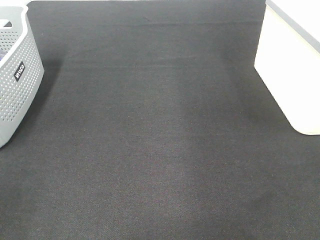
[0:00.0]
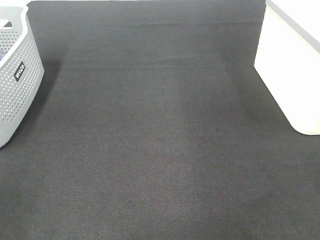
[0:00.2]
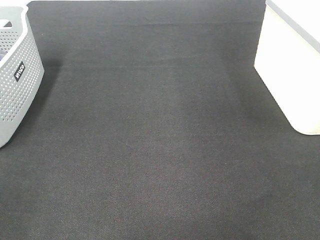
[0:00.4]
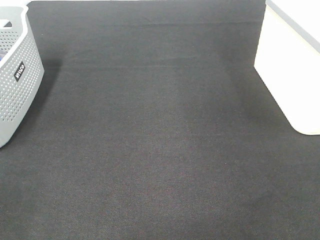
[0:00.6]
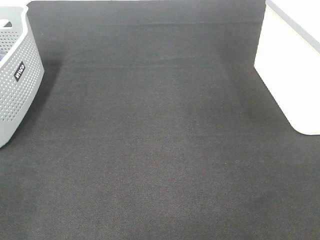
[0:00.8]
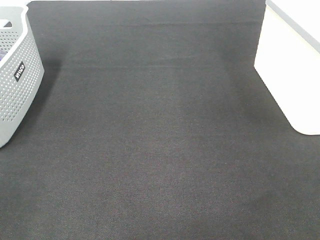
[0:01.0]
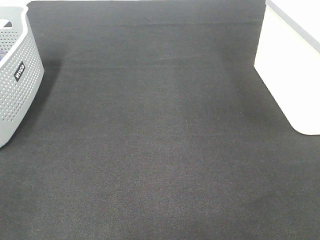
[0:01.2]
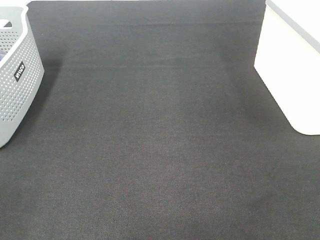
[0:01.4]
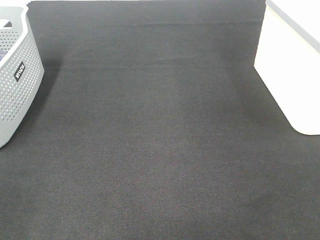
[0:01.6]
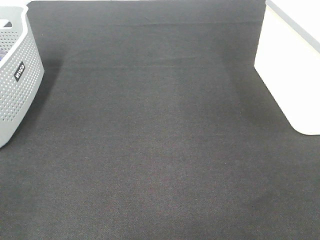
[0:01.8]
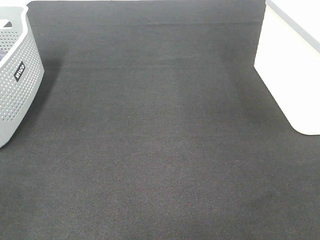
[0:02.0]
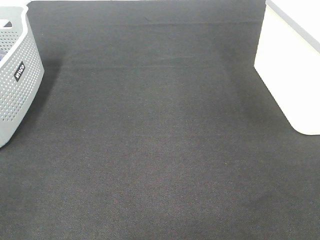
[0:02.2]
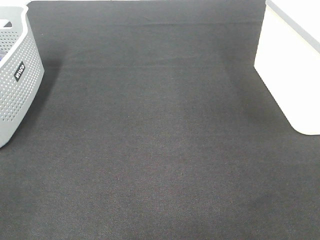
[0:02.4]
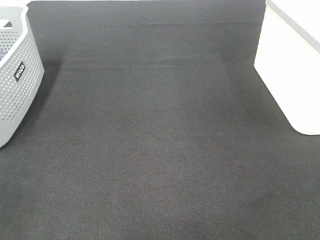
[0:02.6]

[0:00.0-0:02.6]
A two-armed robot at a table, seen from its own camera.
0:01.2 to 0:02.6: The two grippers keep their place.

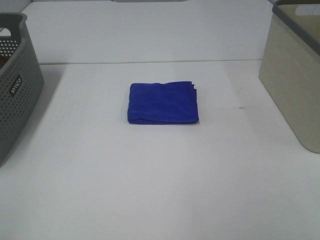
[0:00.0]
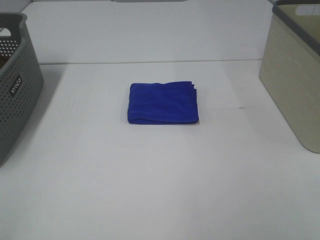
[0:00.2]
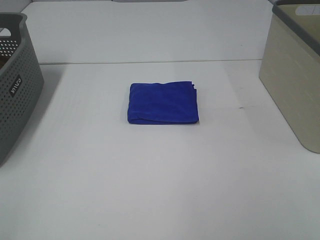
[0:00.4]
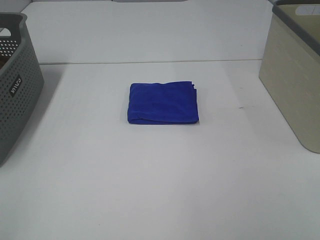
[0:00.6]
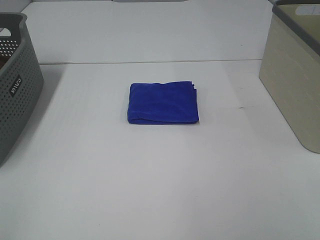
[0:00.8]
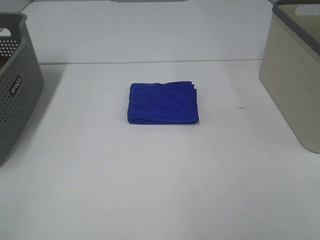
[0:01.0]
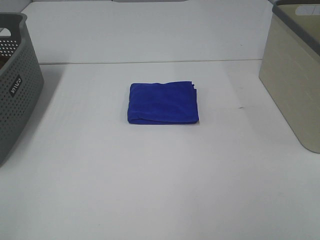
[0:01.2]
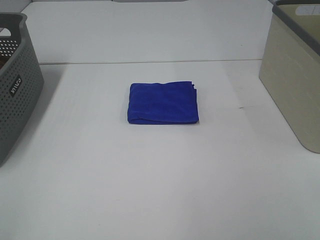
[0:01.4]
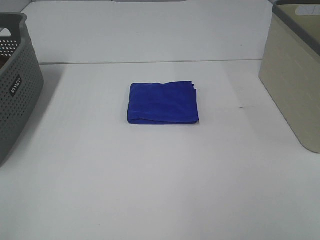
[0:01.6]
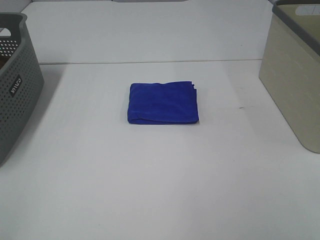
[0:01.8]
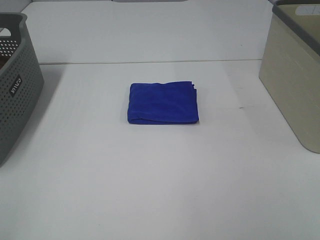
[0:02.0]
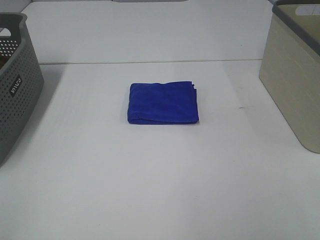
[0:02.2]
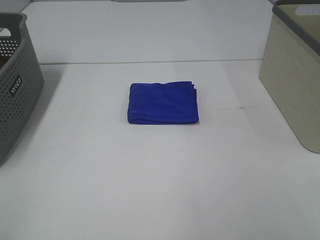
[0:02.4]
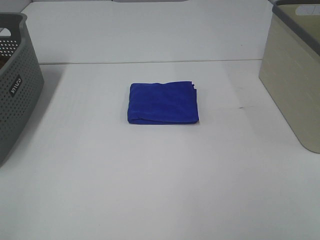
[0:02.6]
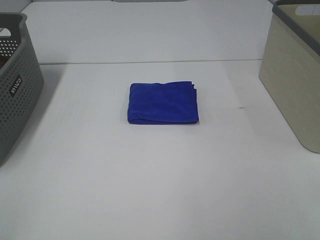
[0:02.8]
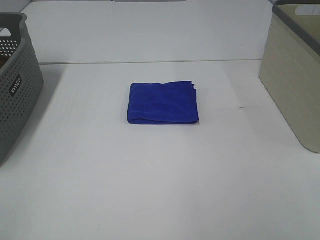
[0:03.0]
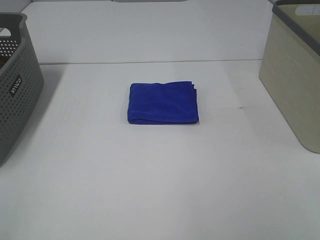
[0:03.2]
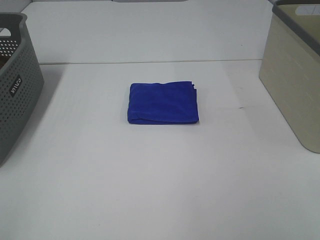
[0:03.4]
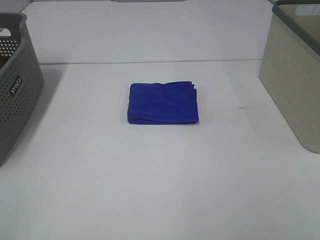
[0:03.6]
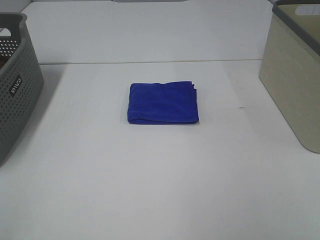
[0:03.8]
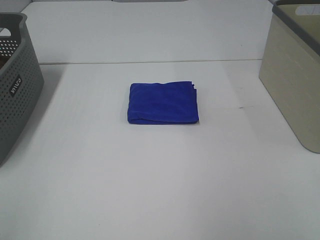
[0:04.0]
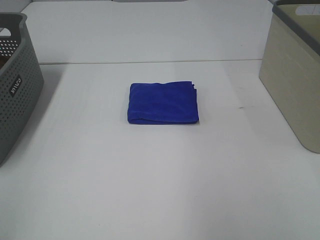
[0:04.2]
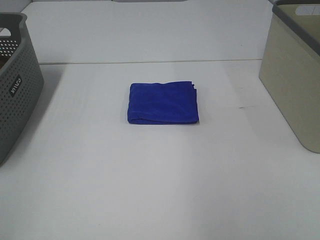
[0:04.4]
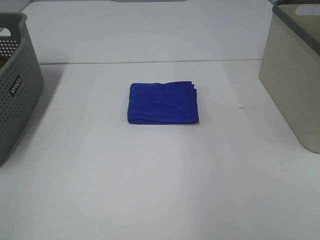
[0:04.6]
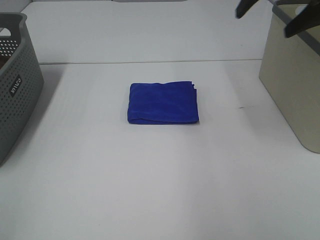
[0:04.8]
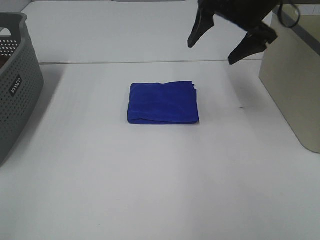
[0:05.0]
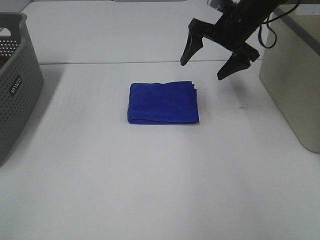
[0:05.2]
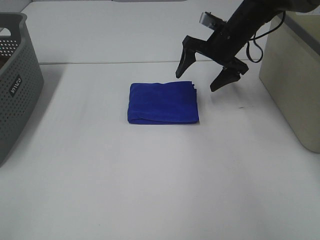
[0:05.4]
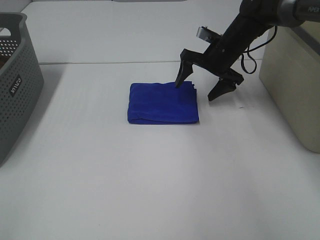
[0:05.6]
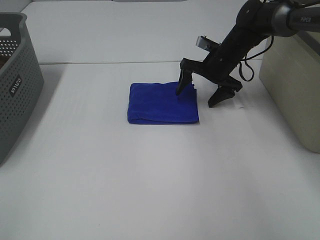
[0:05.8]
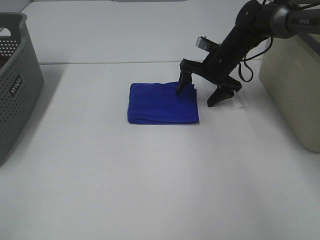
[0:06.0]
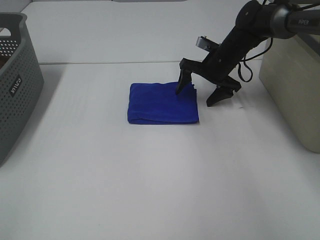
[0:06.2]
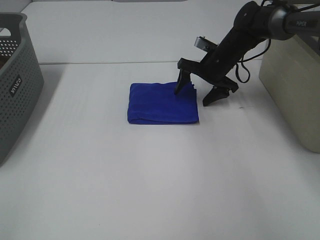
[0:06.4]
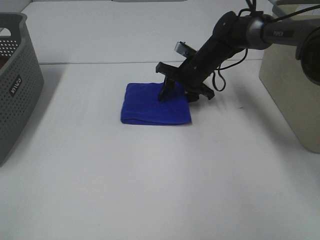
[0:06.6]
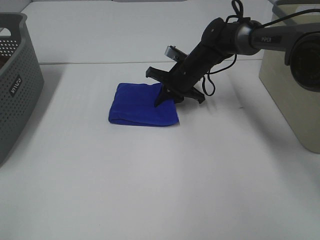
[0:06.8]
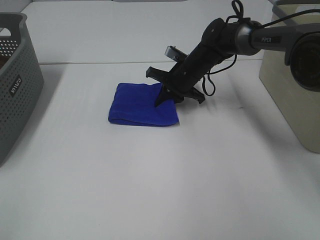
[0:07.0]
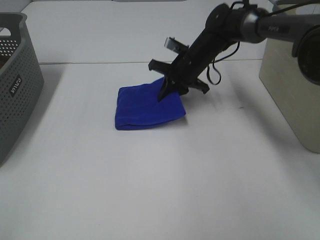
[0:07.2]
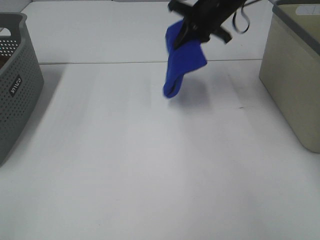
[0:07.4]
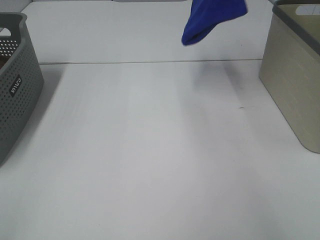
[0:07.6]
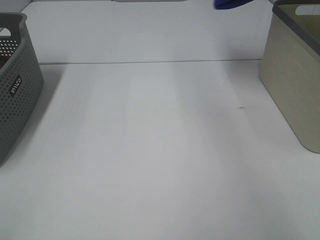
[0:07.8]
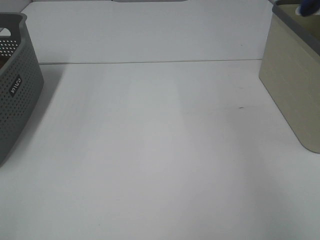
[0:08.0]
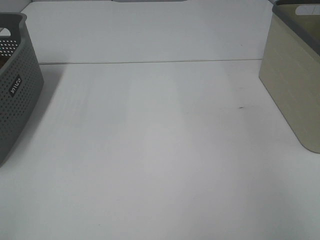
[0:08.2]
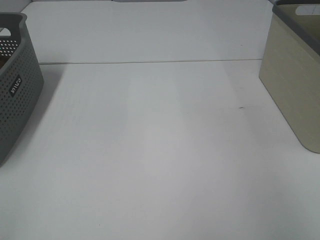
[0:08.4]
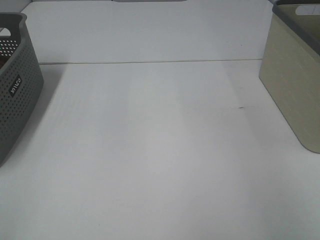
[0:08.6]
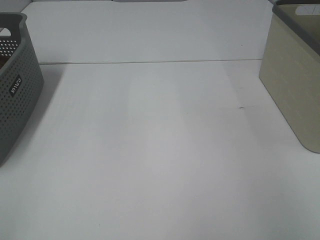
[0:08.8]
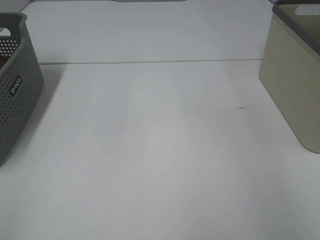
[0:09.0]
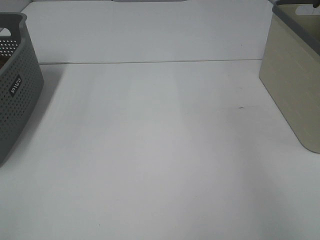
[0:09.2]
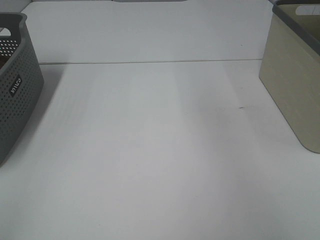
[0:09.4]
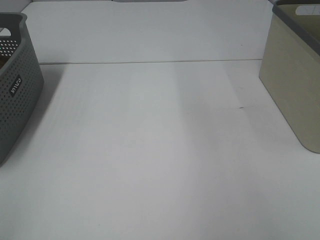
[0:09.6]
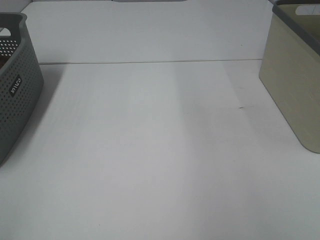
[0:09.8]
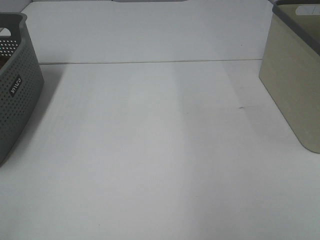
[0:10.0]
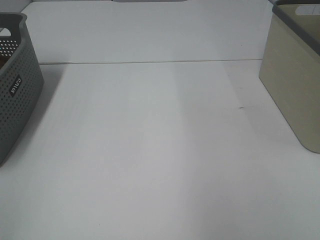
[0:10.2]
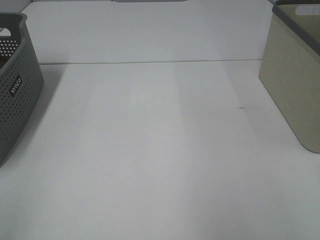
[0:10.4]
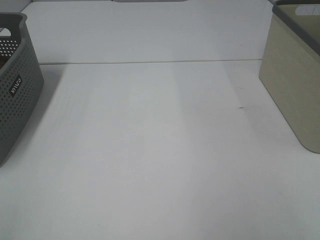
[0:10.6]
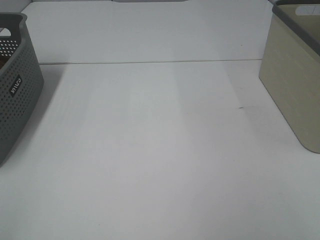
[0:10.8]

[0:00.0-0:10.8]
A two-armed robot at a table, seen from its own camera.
Step, 0:00.0 to 0:07.0: Right hand: grab the folded blue towel.
Step, 0:07.2 to 0:08.8: Right hand: place the blue towel in right basket.
0:00.0 to 0:03.0: Both grippers stay put.
0:04.6 to 0:06.2: The right gripper travels downward, forward and to the left by about 35 cm.
0:06.2 to 0:07.8: The right gripper is displaced upward and to the right by approximately 35 cm, and closes.
0:07.8 to 0:09.2: The right gripper heads downward and to the right, covering roughly 5 cm, and opens its fingers.

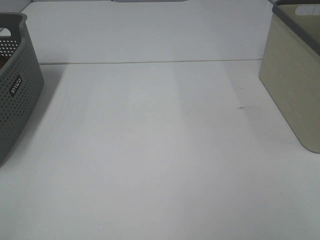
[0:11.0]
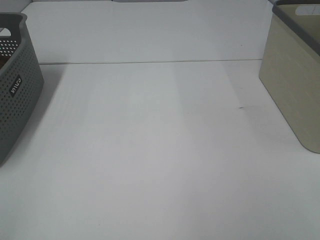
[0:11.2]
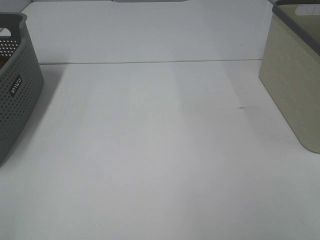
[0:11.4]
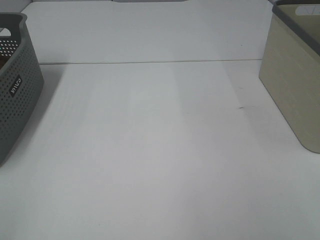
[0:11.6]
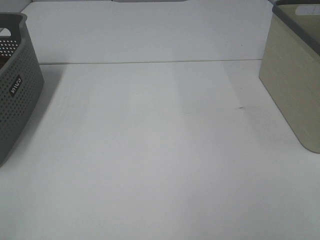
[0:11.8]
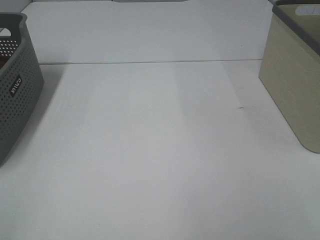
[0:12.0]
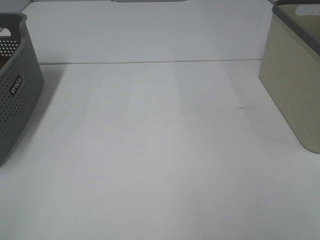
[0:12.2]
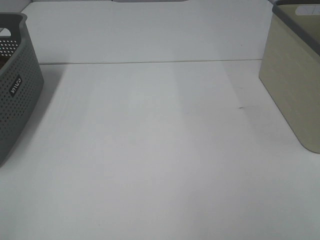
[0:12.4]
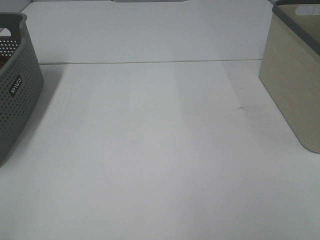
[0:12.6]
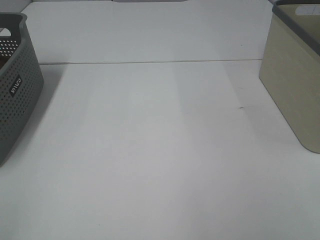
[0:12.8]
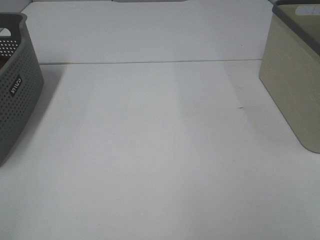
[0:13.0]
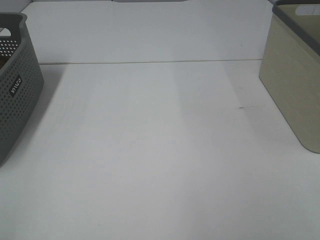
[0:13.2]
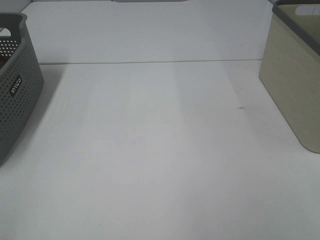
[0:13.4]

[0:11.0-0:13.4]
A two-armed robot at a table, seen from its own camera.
0:12.2 to 0:13.4: Both grippers stay put.

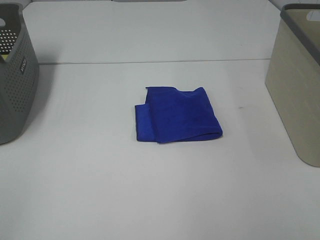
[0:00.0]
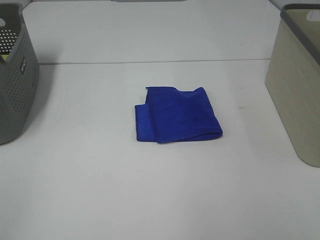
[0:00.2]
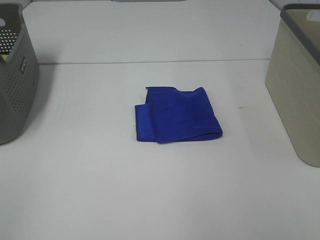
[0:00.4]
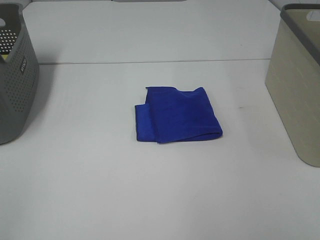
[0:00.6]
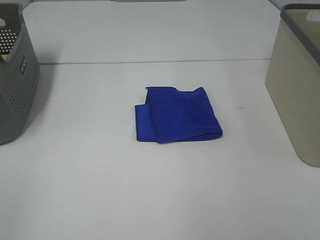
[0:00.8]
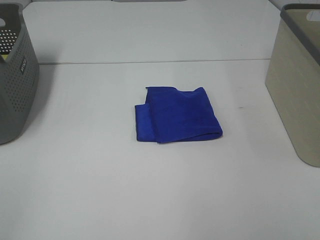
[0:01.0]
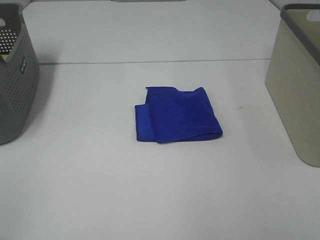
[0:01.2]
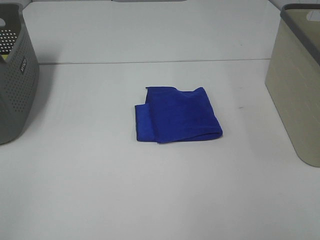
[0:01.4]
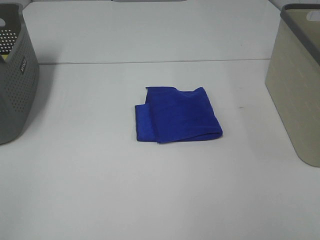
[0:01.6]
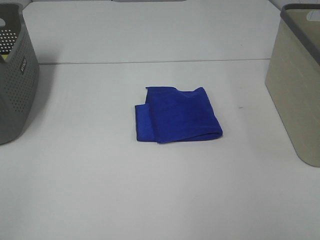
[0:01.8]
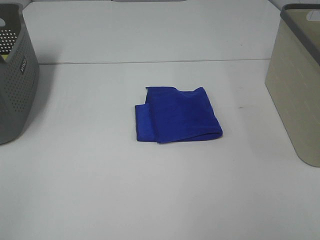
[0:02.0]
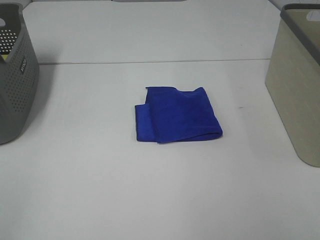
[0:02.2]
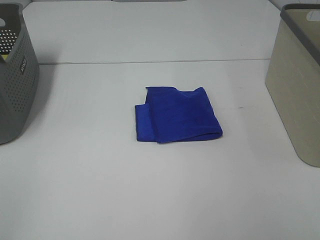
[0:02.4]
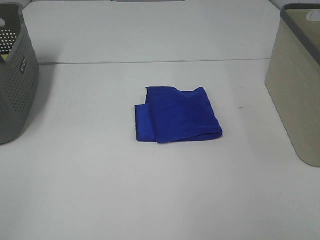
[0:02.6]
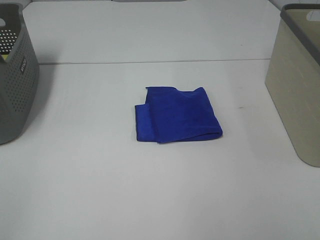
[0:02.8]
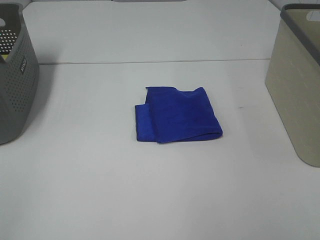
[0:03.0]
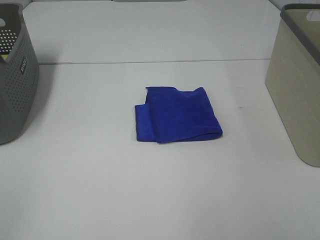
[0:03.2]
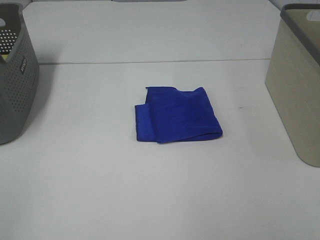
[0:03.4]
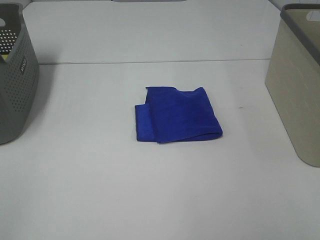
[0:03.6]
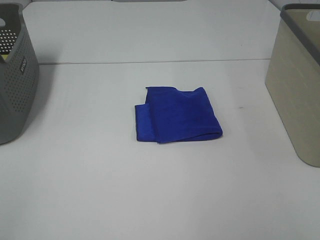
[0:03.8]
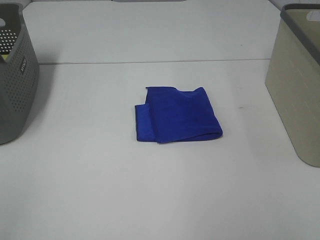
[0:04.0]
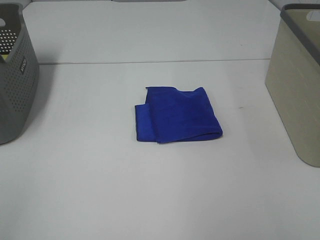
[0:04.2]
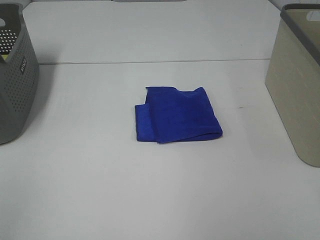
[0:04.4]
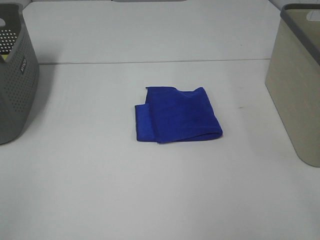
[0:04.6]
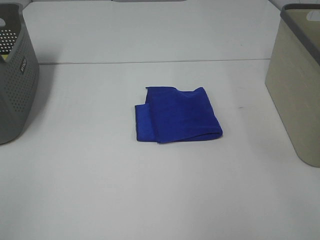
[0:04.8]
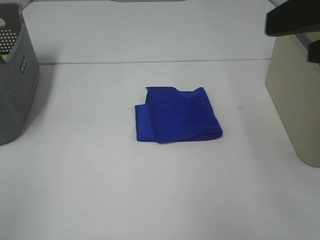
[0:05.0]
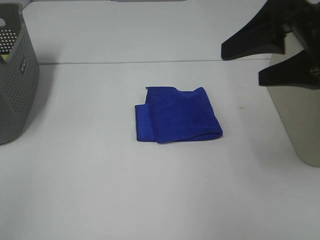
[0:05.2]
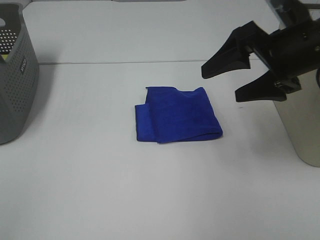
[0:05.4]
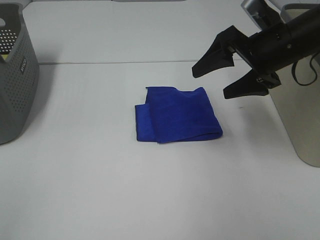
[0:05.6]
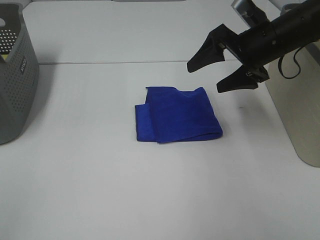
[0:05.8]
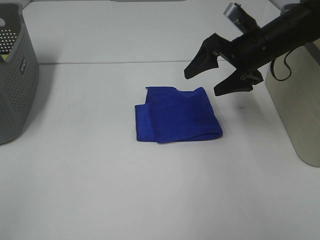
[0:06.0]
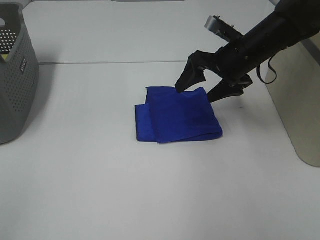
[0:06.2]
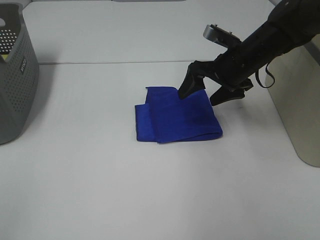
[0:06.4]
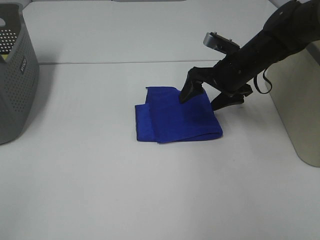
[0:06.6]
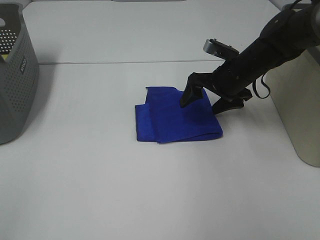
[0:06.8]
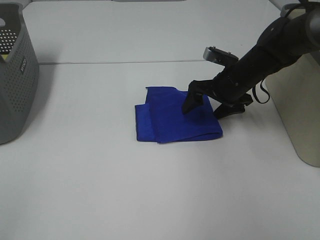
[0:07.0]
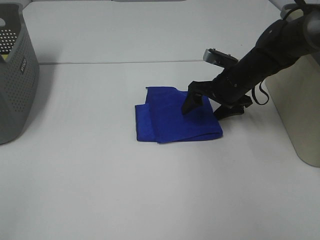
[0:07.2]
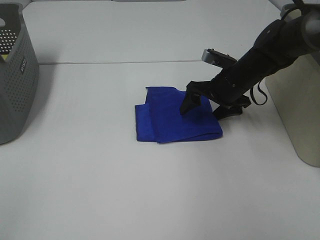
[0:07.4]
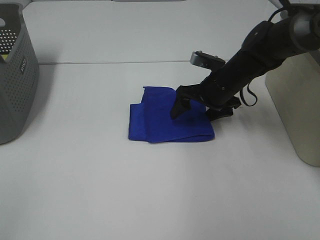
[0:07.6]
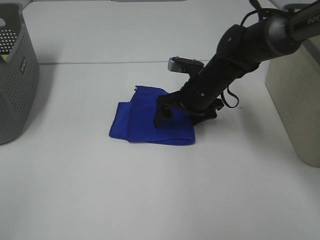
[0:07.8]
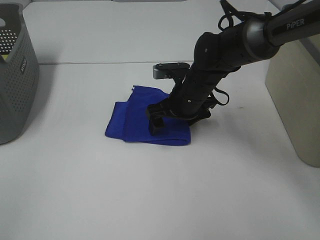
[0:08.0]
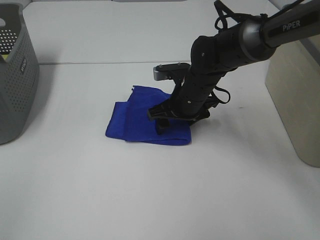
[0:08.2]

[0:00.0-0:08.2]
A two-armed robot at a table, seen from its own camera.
0:01.6 to 0:03.2: The two grippers keep their place.
0:03.2 to 0:05.0: The right gripper goes approximately 20 cm forward, upward and to the left.
0:05.0 to 0:06.6: The right gripper goes some 30 cm forward and downward.
0:06.6 to 0:08.2: The right gripper goes approximately 10 cm to the left and downward.
